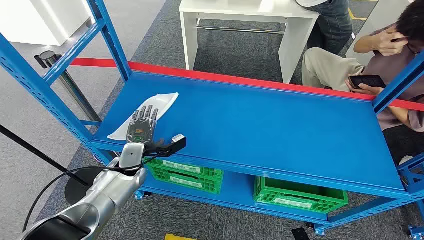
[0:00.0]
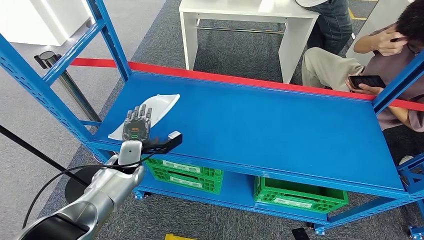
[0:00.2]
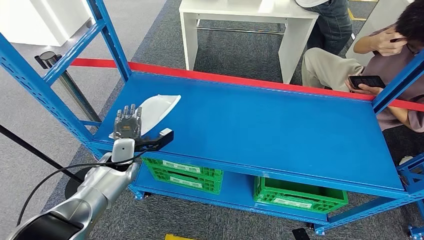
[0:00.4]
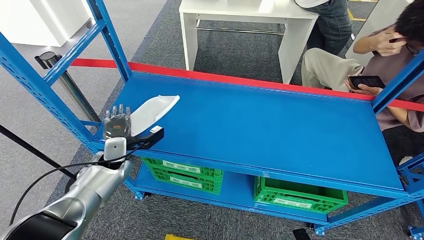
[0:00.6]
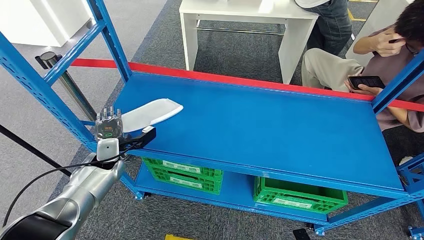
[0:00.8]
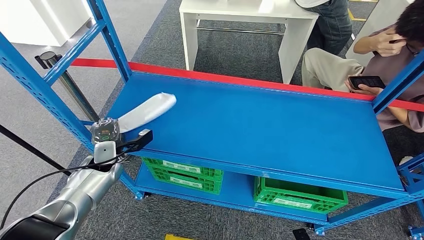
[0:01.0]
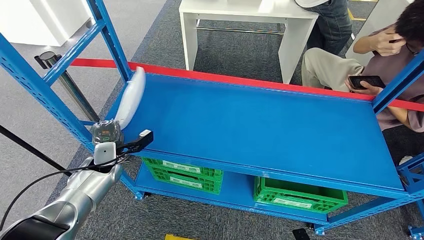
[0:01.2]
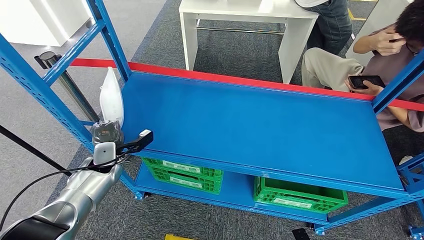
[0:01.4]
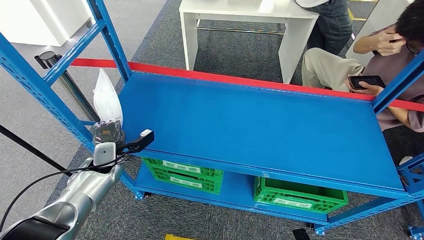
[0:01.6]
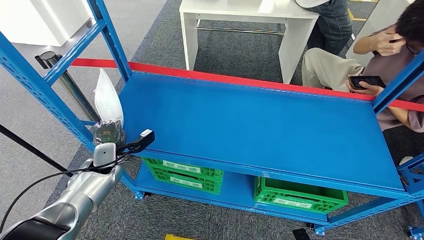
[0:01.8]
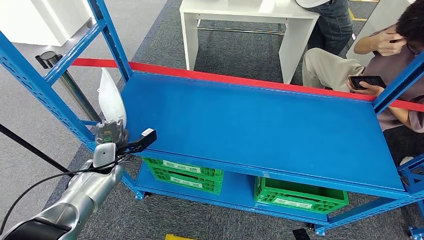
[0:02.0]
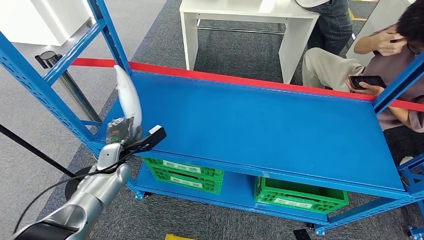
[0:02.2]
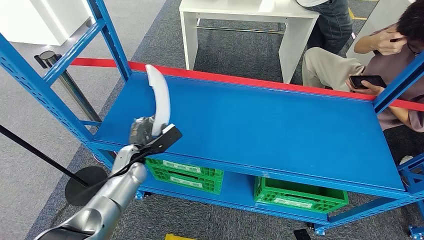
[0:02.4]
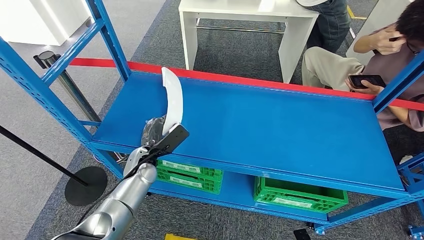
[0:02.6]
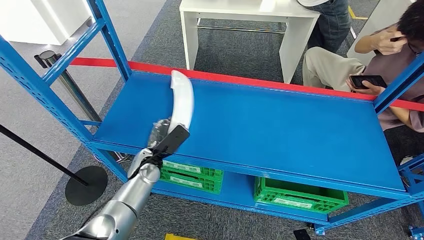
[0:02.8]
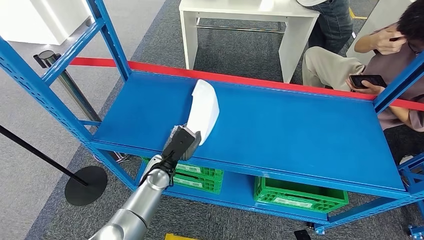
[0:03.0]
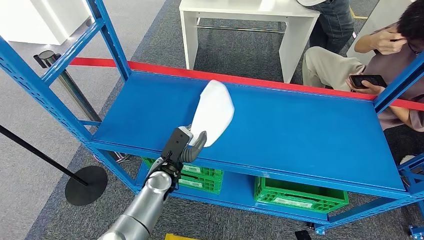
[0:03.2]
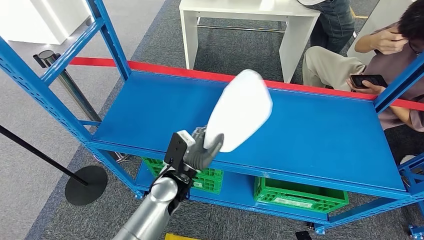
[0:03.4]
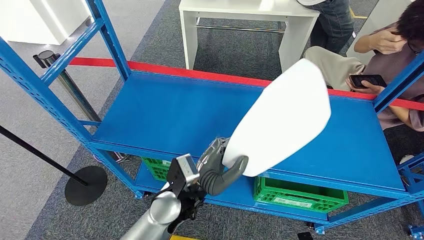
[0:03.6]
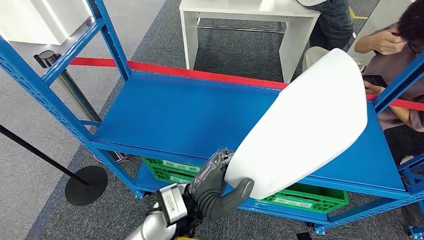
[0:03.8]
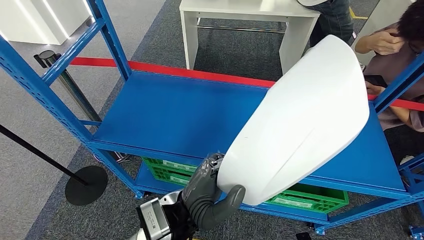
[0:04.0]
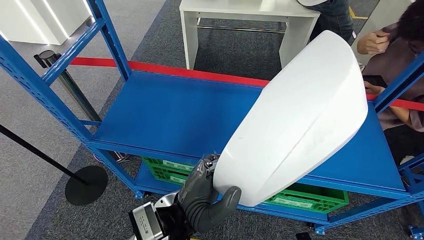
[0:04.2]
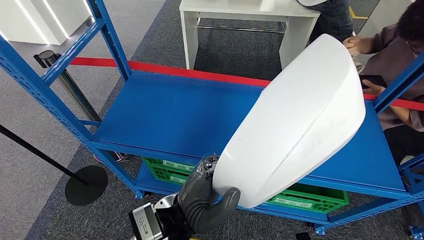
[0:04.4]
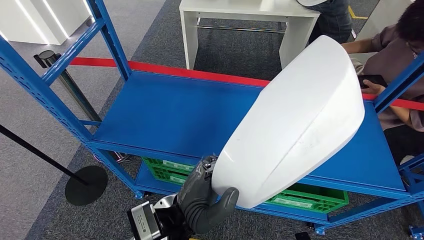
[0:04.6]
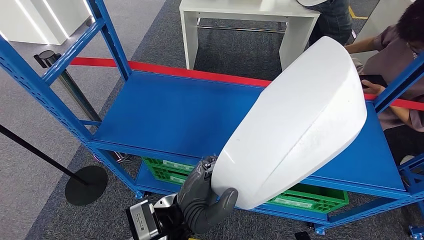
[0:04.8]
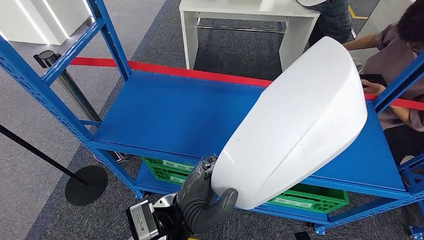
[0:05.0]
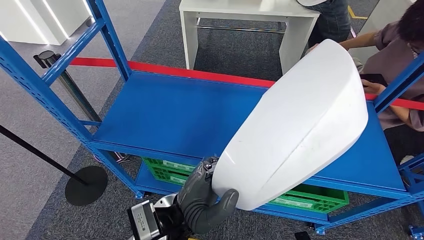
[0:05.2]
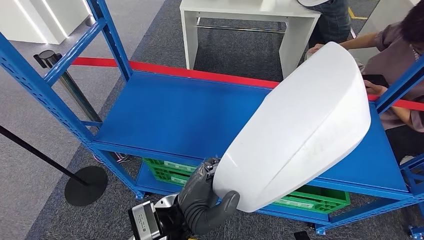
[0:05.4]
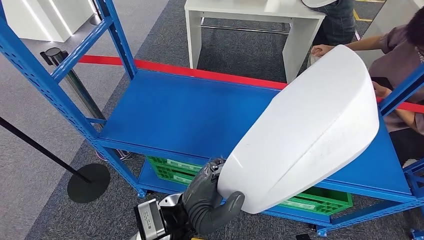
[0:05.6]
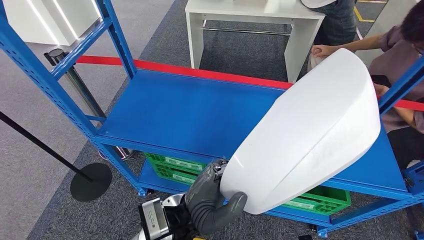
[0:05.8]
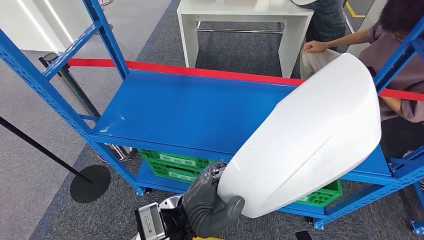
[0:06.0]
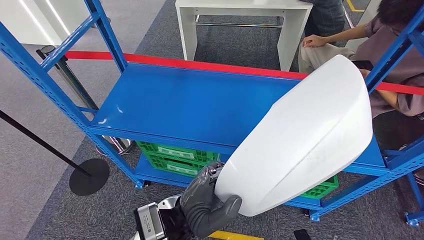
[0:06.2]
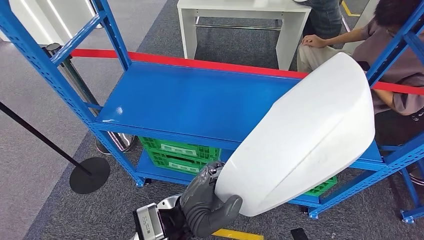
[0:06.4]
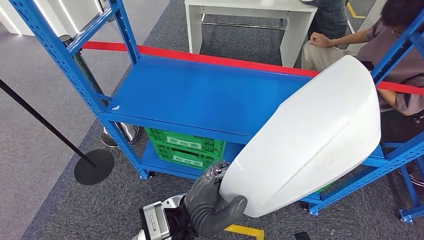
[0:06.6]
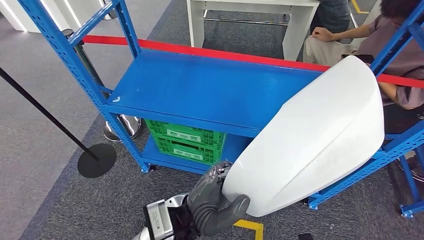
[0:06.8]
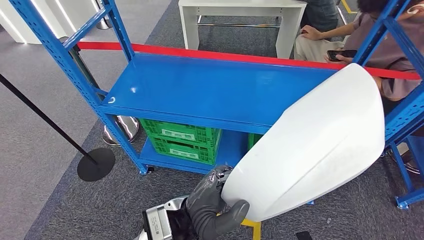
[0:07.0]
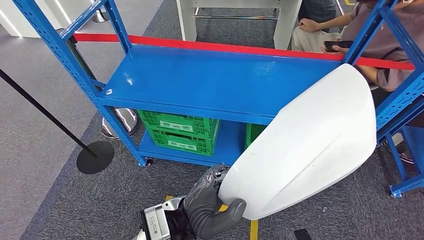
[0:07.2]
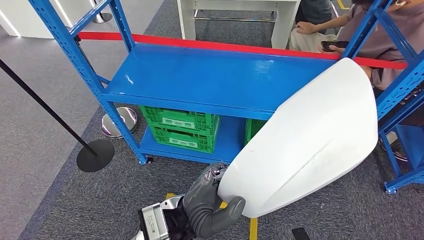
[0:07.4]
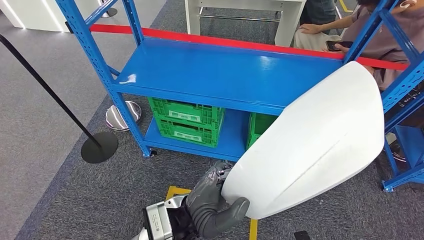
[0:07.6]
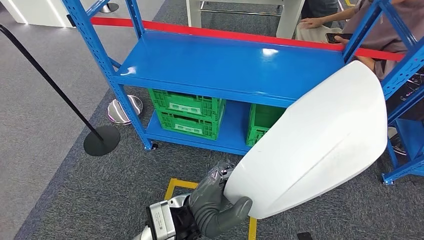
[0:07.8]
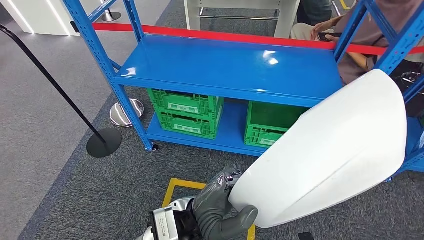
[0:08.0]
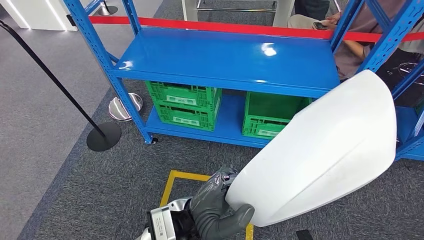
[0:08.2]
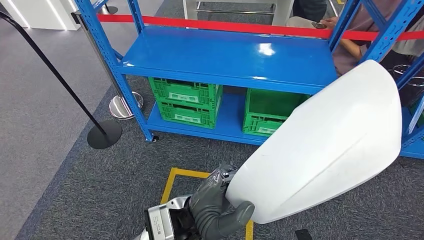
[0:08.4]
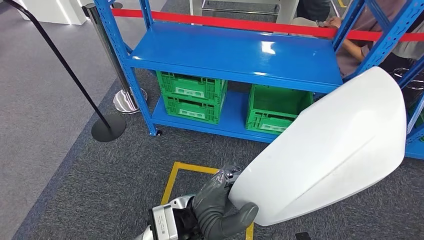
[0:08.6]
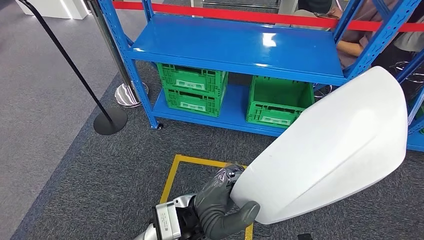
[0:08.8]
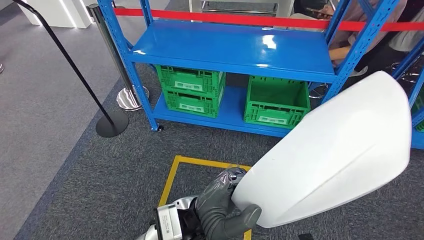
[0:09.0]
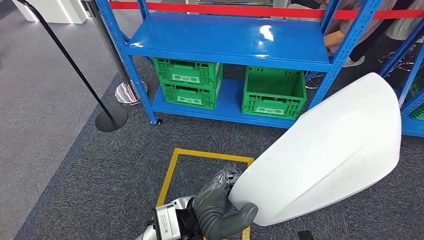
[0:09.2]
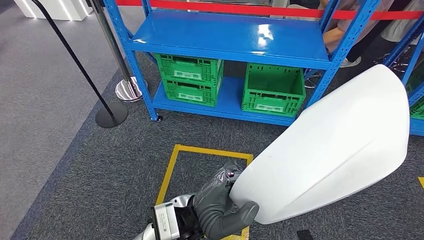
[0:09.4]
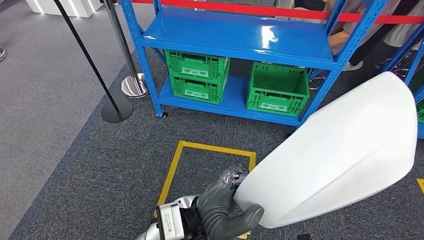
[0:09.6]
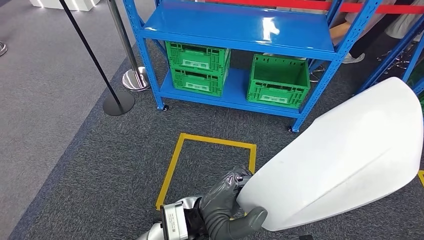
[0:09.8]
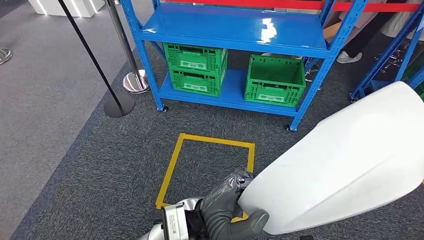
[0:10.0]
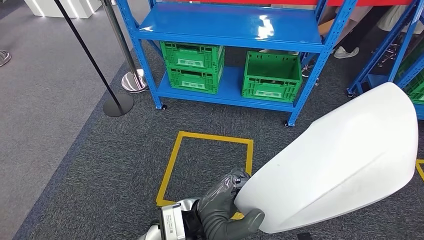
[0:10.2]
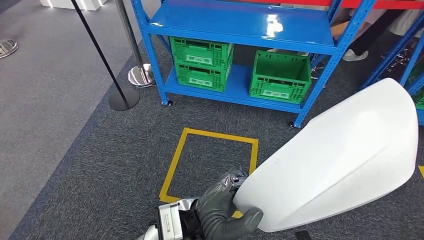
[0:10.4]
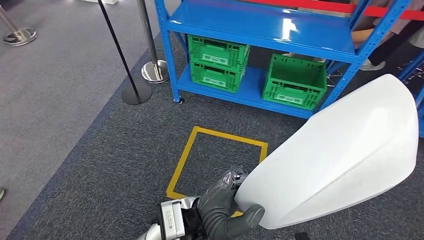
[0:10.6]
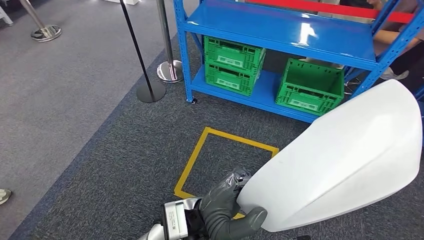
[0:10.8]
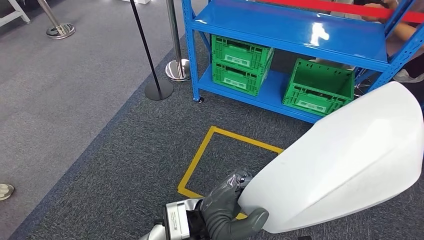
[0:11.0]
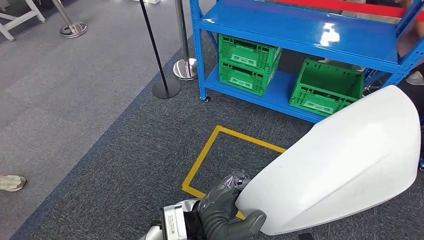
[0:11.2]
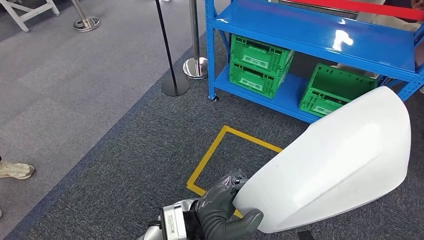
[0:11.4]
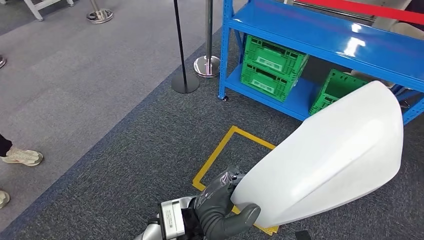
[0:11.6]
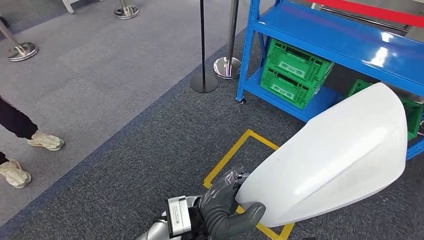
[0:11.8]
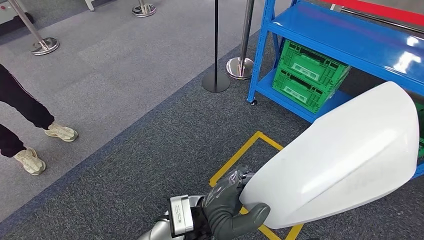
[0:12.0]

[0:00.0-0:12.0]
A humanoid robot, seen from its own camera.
Step, 0:00.0 to 0:03.0: Pick up the large material from the shelf.
0:01.6 to 0:03.0: The left hand shifts some 20 cm to the right.

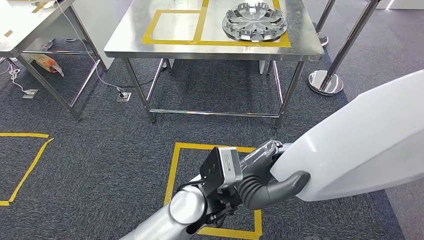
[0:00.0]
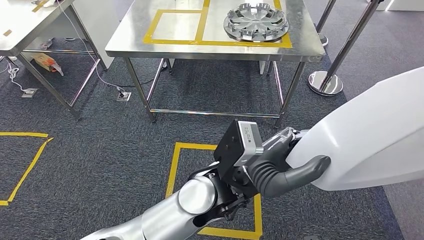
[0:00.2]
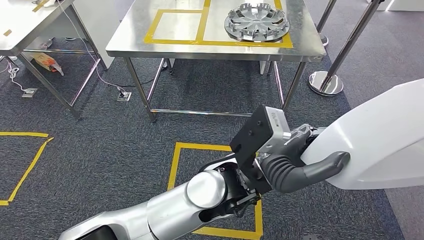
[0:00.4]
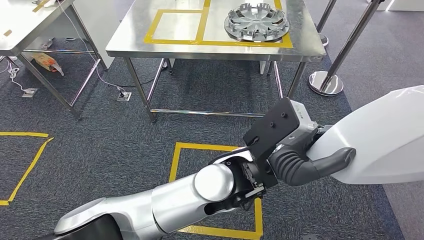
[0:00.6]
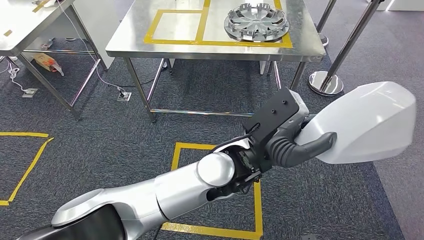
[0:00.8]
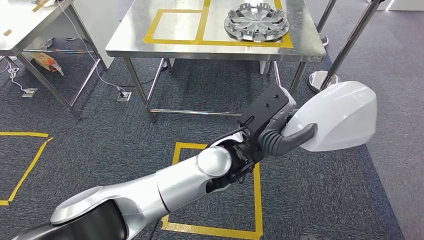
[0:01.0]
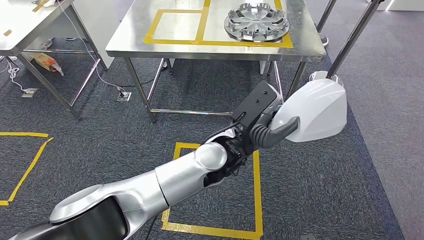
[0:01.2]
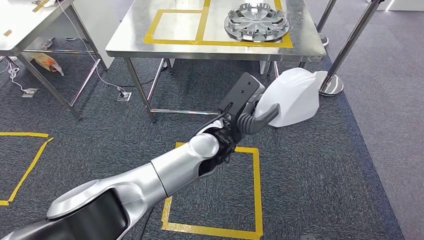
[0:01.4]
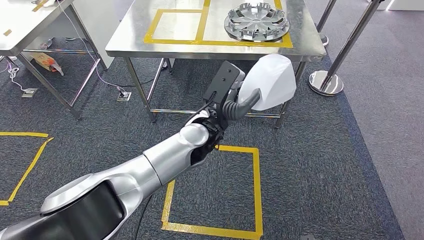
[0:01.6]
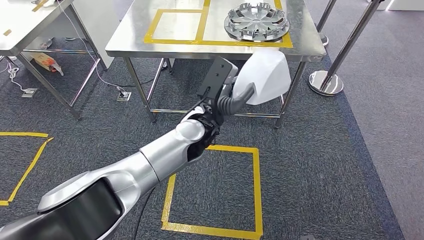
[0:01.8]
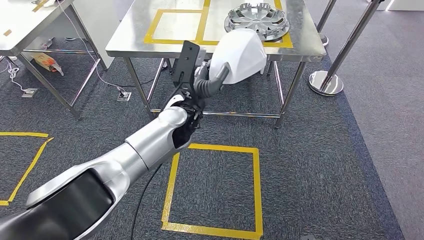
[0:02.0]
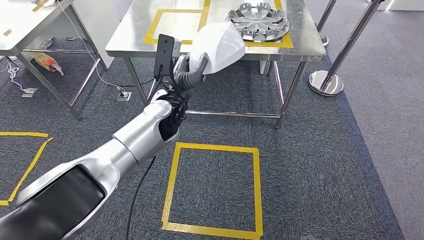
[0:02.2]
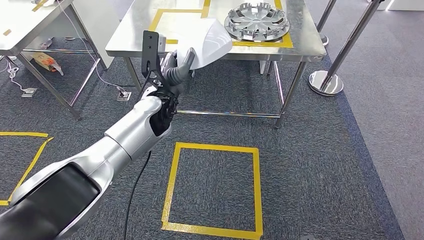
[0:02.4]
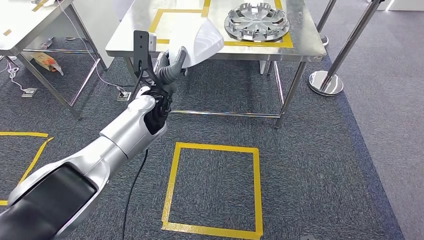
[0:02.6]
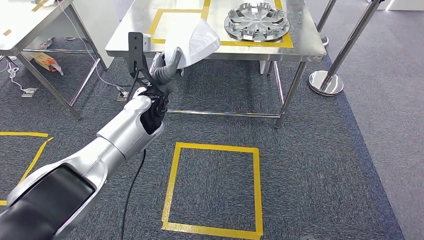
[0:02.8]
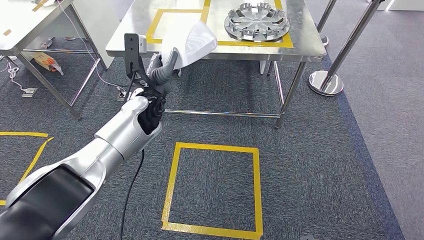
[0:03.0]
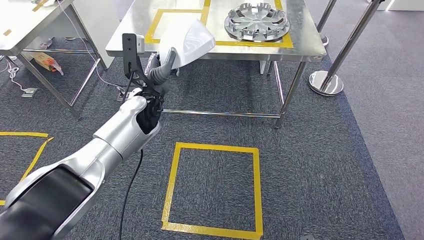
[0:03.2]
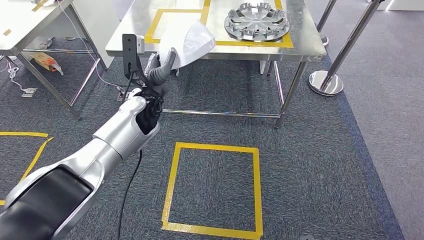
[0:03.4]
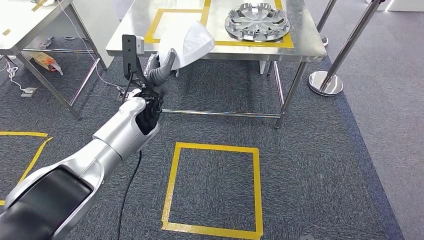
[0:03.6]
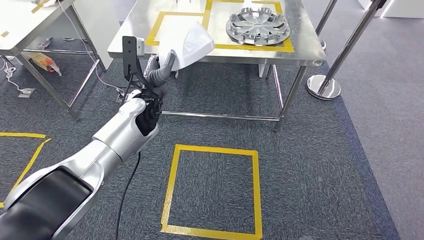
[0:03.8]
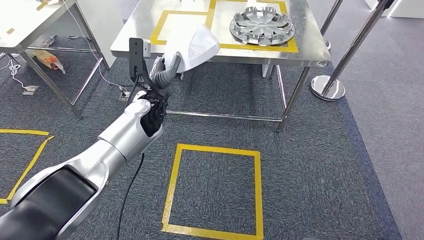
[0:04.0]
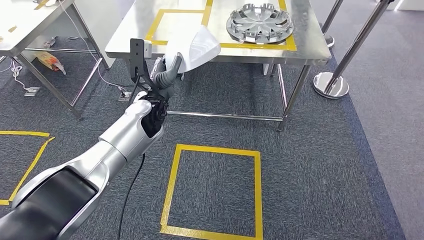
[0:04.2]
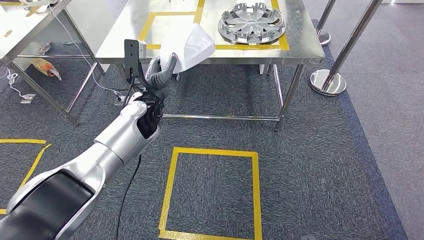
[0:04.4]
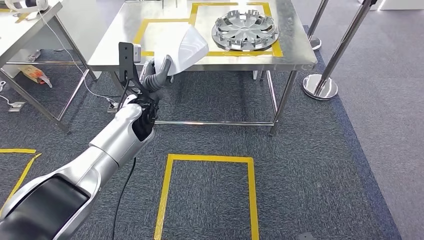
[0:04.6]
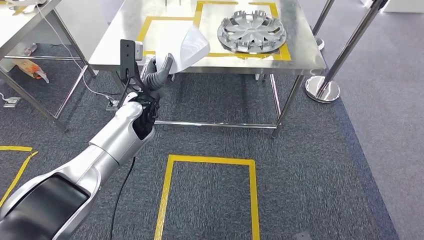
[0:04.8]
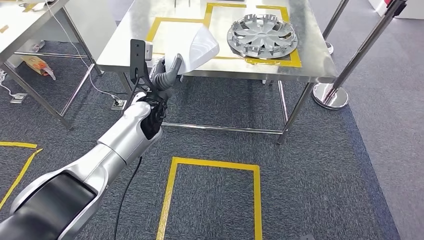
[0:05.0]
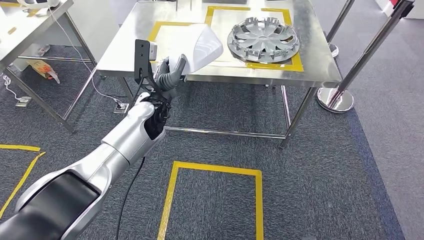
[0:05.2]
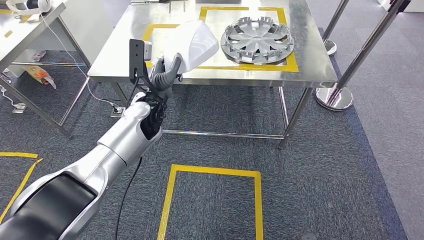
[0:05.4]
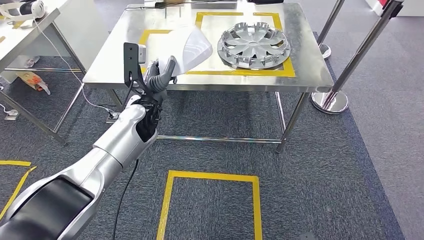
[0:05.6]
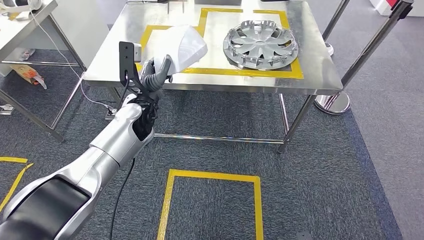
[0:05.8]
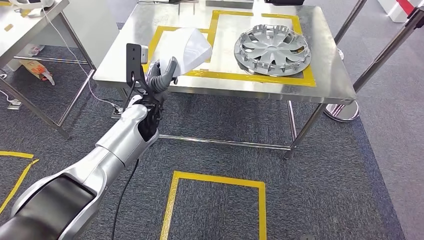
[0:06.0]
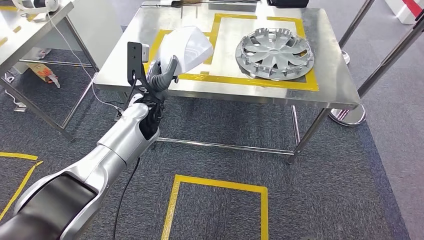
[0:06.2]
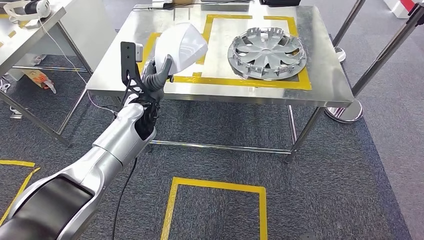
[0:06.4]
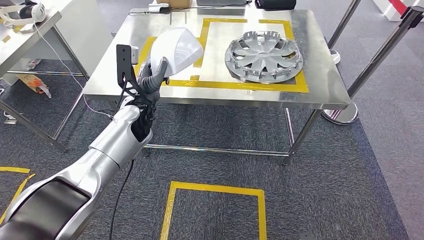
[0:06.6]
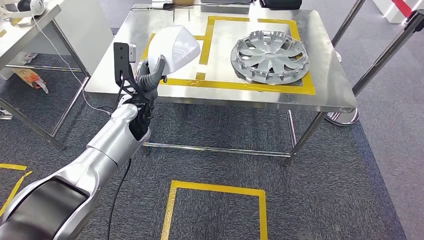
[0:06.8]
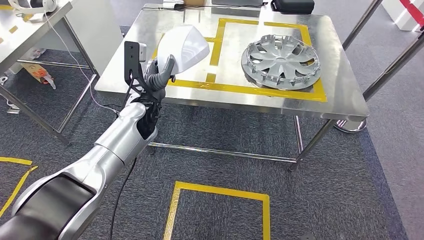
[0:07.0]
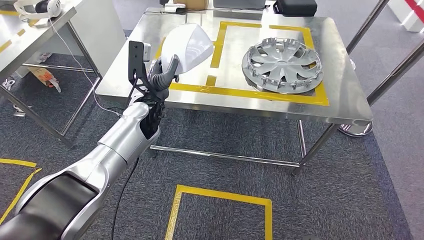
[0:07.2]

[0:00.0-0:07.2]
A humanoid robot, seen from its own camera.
Step, 0:00.0 to 0:05.0: Move the large material to the workbench.
